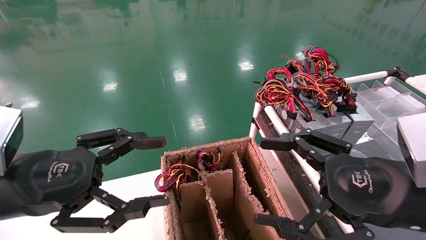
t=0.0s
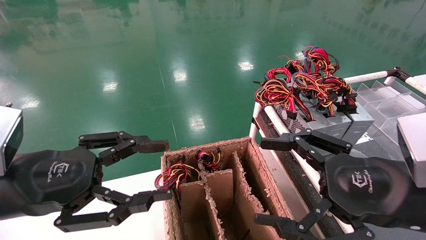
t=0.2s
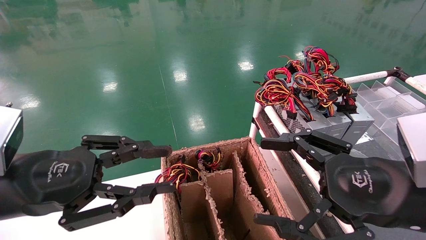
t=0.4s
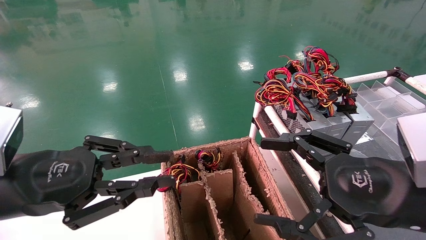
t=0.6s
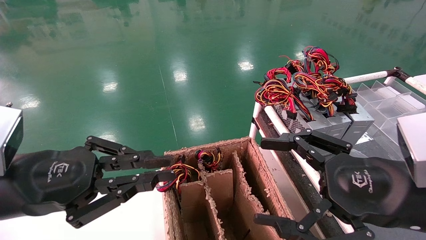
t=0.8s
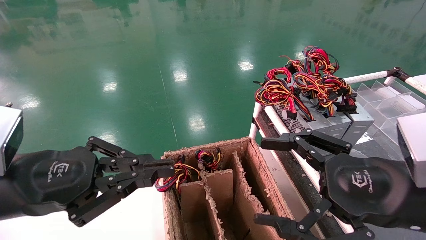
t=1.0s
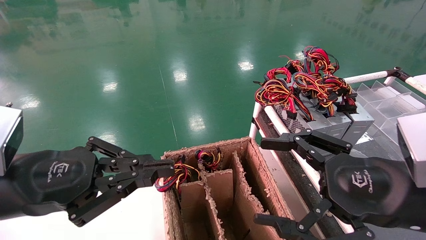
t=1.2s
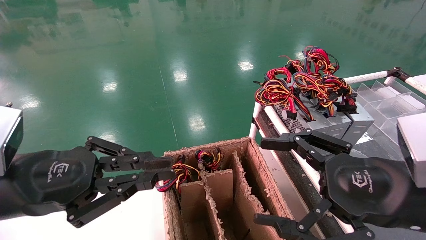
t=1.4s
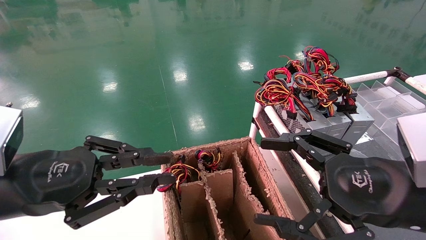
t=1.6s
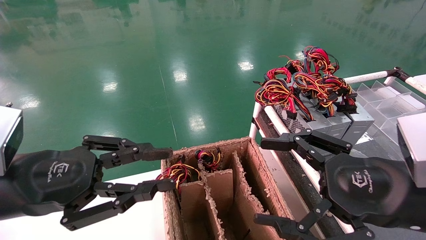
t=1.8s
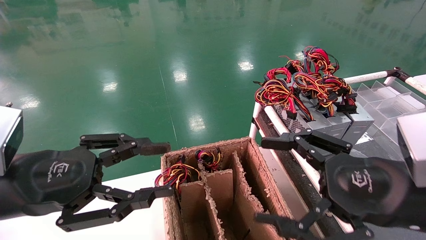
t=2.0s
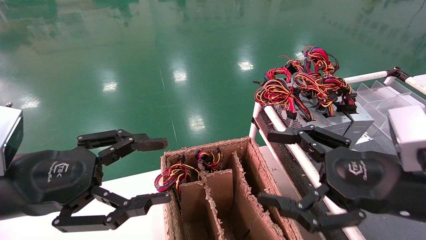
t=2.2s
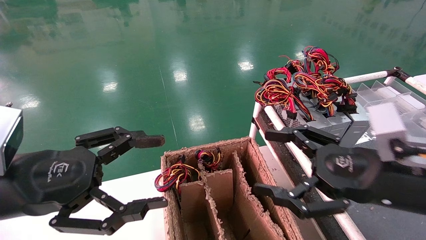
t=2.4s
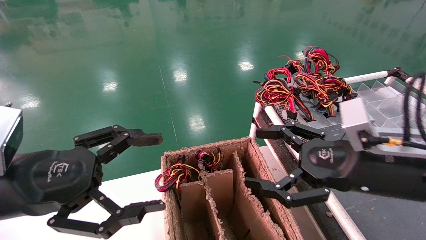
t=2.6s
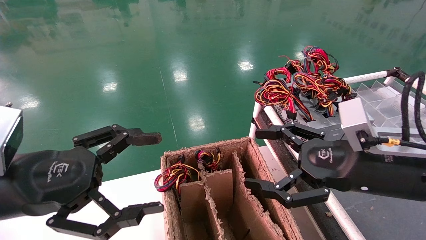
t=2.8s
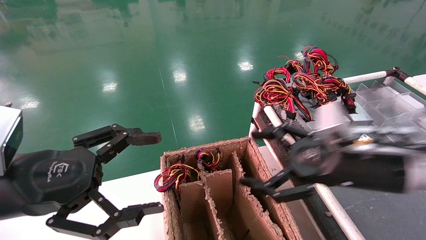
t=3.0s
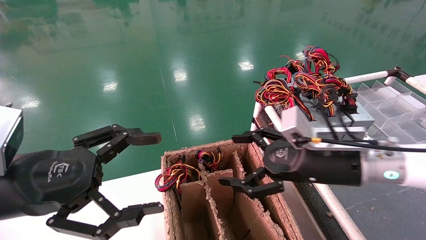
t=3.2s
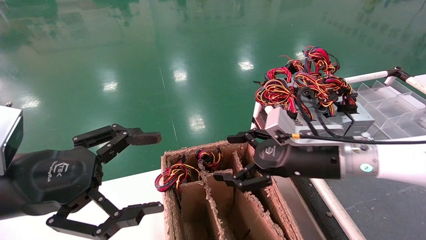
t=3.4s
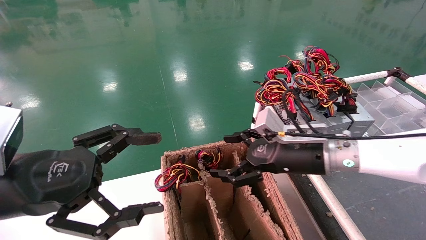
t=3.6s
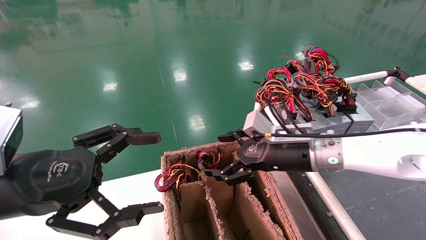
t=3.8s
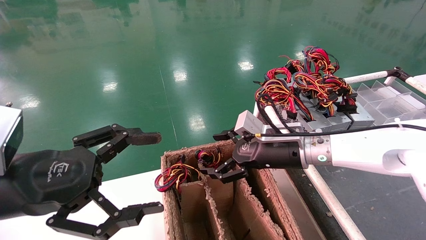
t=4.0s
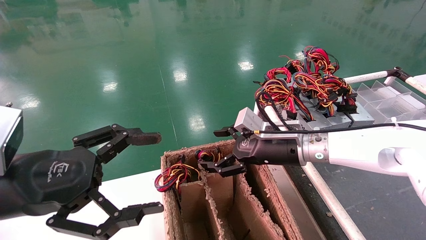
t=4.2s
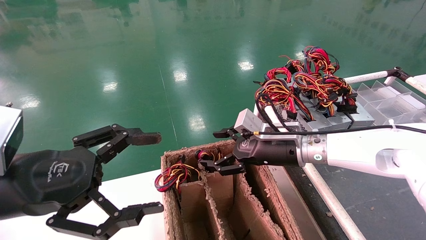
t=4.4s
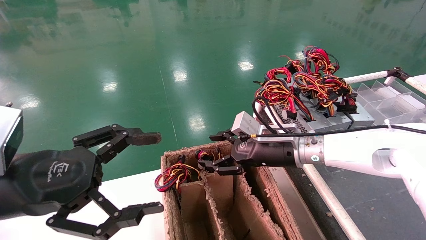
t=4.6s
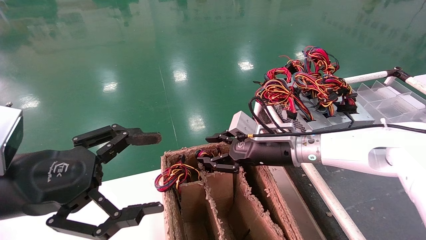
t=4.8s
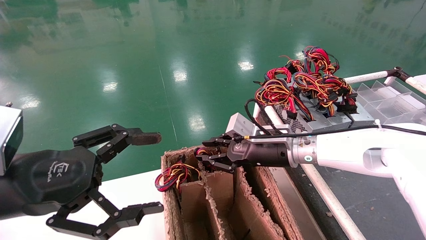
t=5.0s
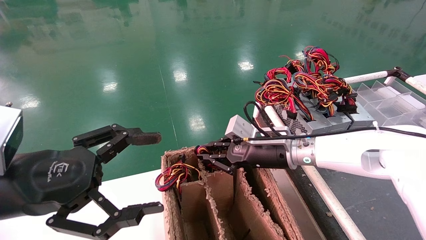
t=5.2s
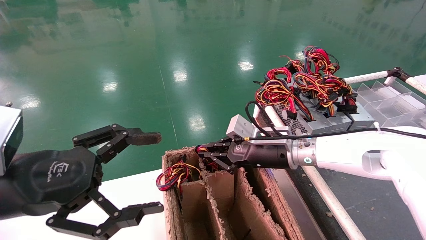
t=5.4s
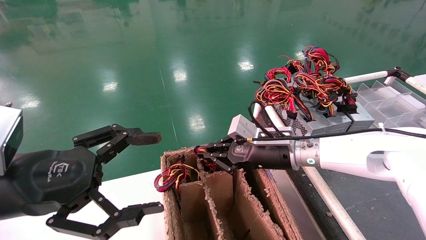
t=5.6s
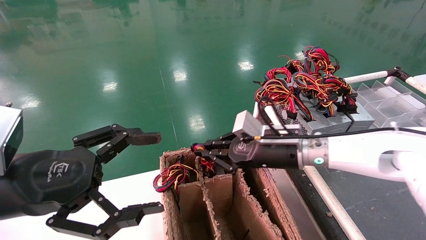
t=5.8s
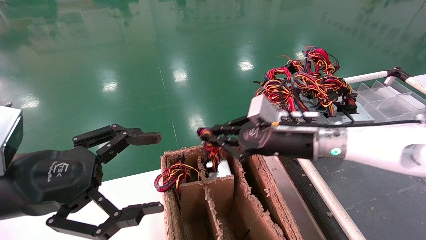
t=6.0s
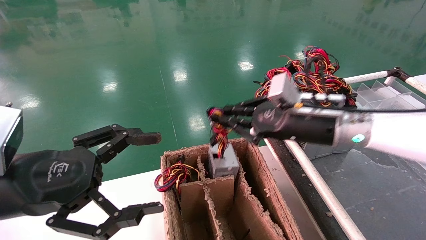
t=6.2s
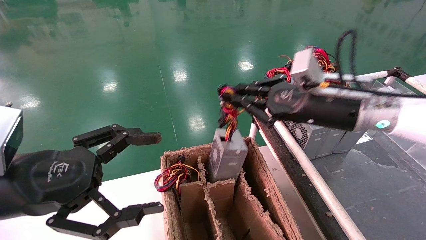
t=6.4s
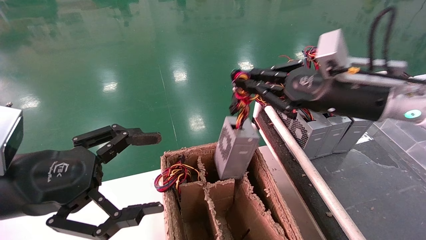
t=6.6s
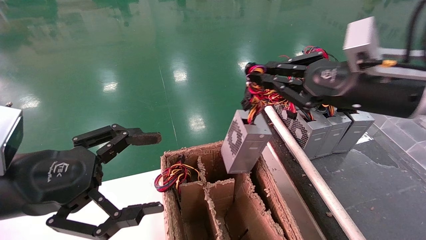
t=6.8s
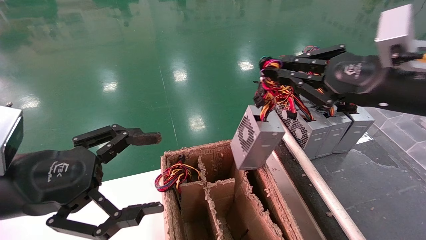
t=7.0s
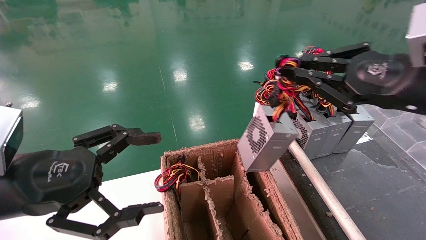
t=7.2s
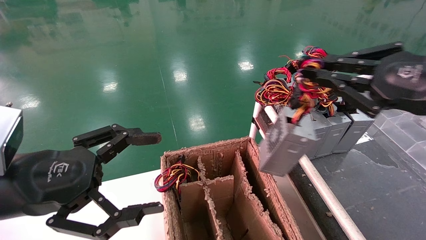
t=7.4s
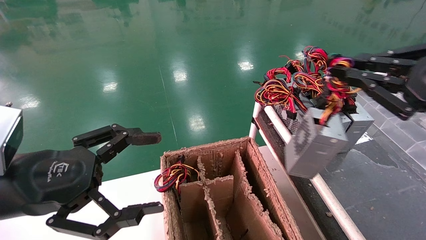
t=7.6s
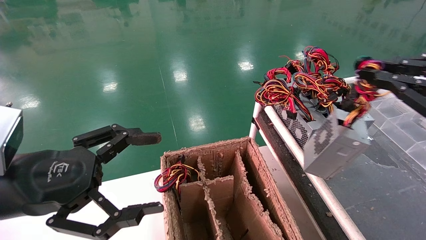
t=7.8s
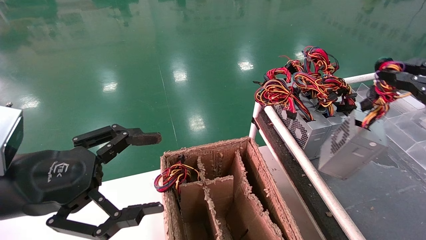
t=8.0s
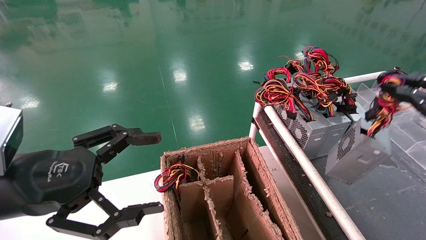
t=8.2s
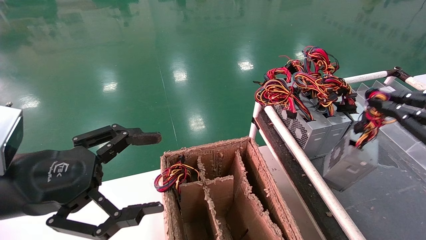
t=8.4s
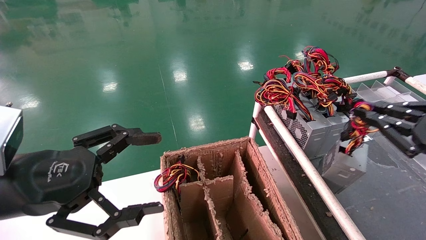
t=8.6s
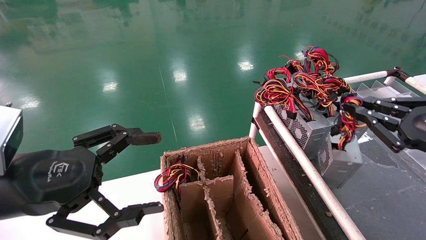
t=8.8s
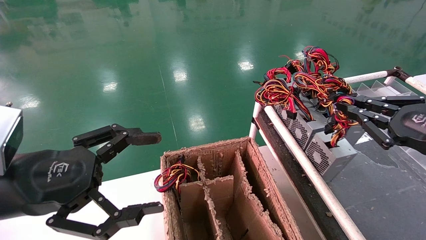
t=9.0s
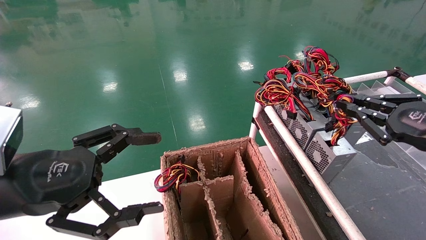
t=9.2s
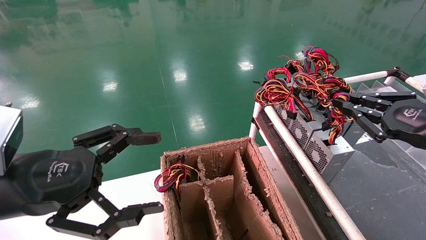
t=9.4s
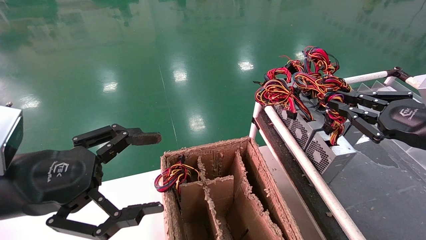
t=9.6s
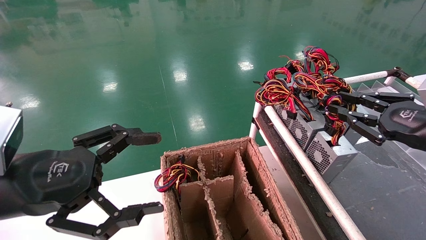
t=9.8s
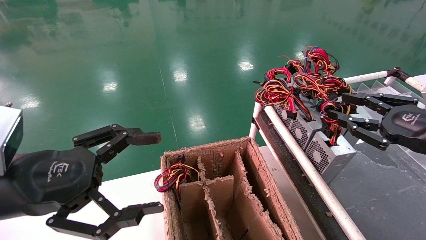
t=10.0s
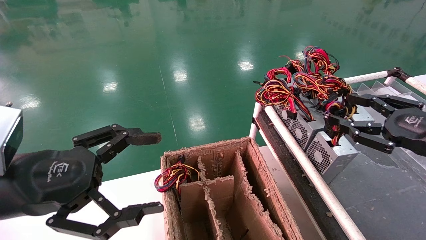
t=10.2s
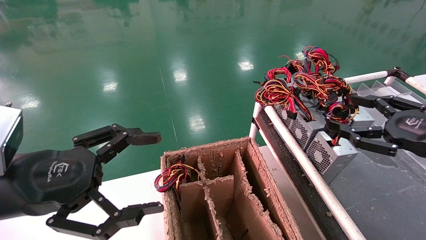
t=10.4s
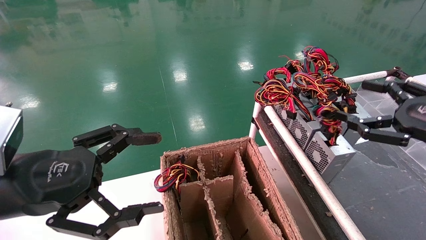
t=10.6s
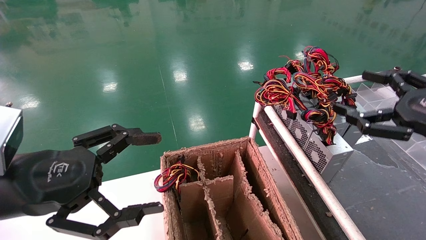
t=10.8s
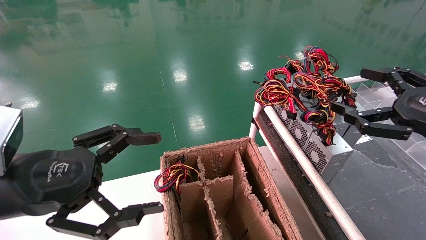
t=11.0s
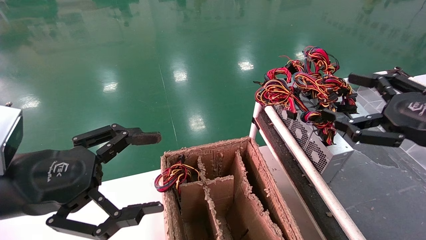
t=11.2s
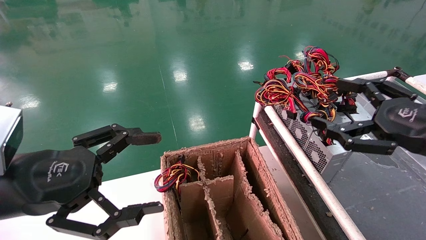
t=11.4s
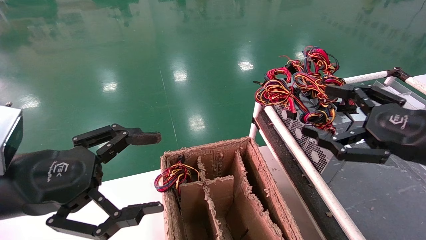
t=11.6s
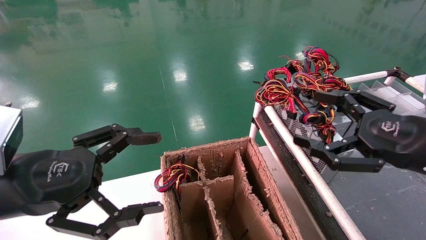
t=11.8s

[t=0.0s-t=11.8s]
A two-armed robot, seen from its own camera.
Step, t=1.2s to t=5.6s: Grab and lift the power supply from the large box.
Step, t=5.8s to t=9.8s: Place the power supply on the operating table.
t=0.0s to t=1.4s: The left gripper closes.
t=1.4s to t=3.0s: The left gripper opens up. Meanwhile the right gripper is displaced forward by roughly 10 cm.
t=3.0s to t=4.4s: The right gripper heads forward and to the left, covering approximately 15 cm.
t=4.4s to t=6.0s: The right gripper ends up approximately 5 cm from where it was, and closes.
t=6.0s to t=7.4s: The right gripper moves to the right, backward and upward, about 25 cm.
t=7.4s to t=8.8s: The right gripper travels downward and to the right by roughly 10 cm.
t=8.8s to t=10.4s: The right gripper opens up.
t=10.4s to t=11.8s: The right gripper shifts some 5 cm to the left, and opens its fingers.
